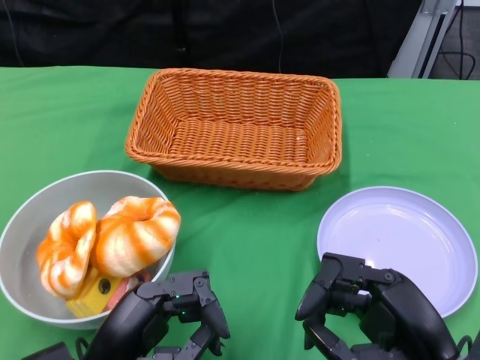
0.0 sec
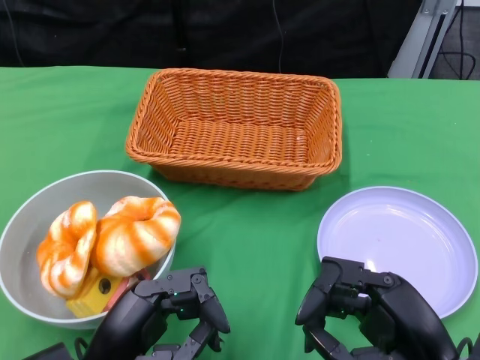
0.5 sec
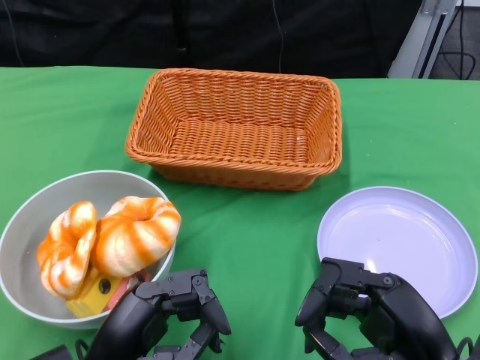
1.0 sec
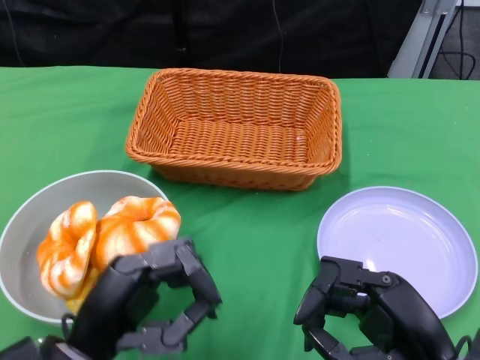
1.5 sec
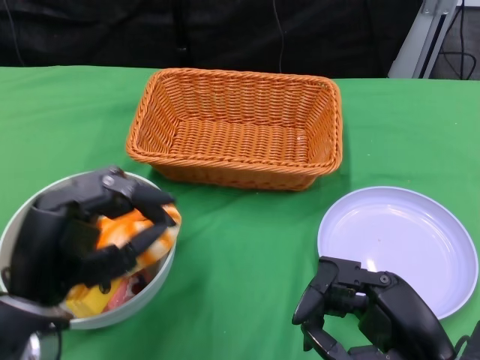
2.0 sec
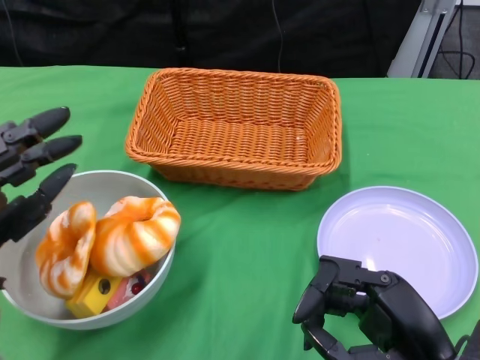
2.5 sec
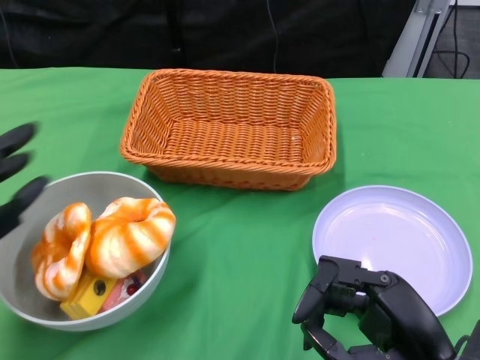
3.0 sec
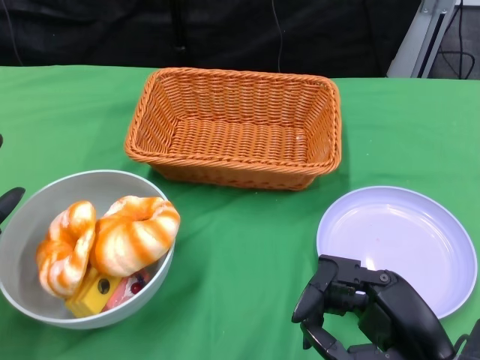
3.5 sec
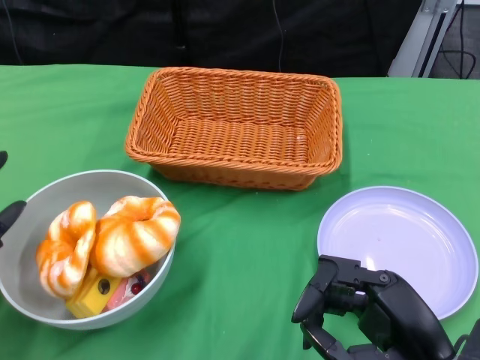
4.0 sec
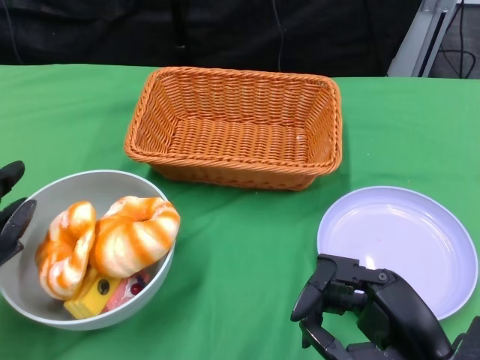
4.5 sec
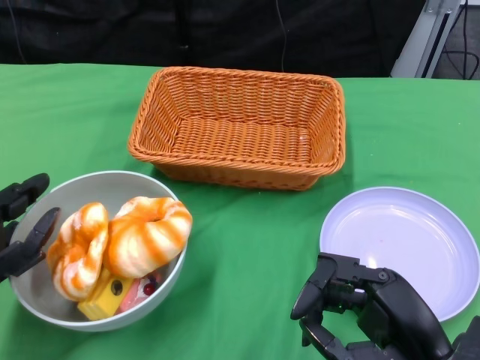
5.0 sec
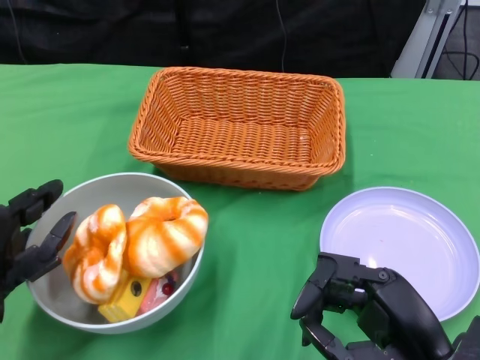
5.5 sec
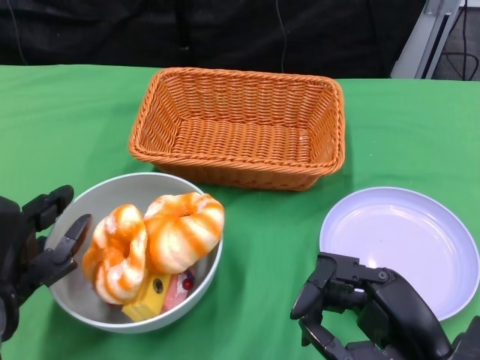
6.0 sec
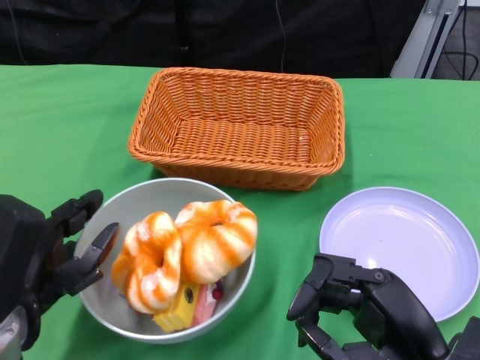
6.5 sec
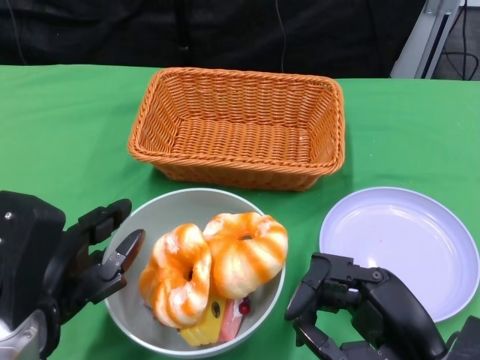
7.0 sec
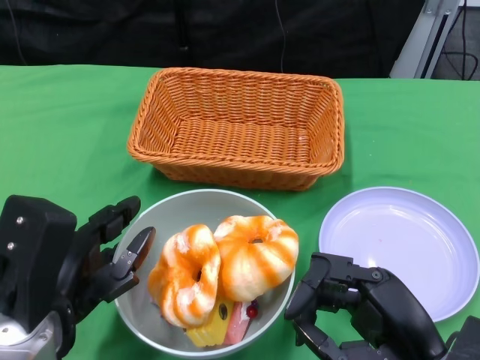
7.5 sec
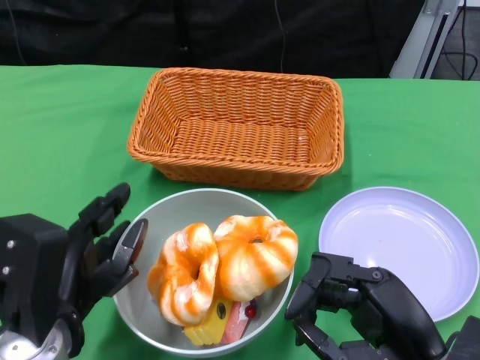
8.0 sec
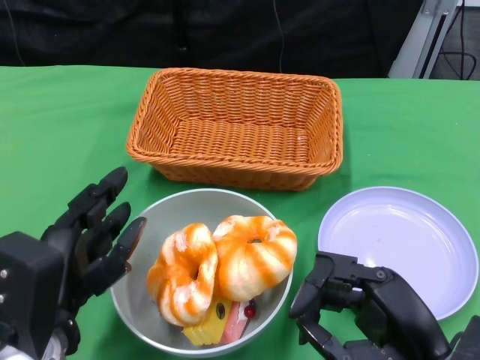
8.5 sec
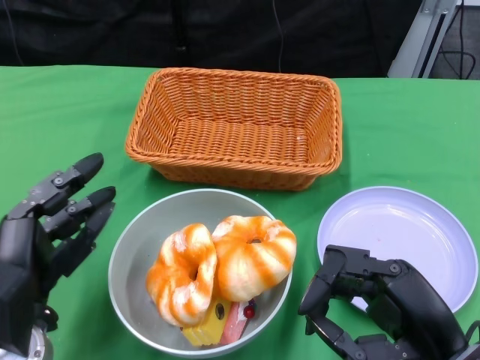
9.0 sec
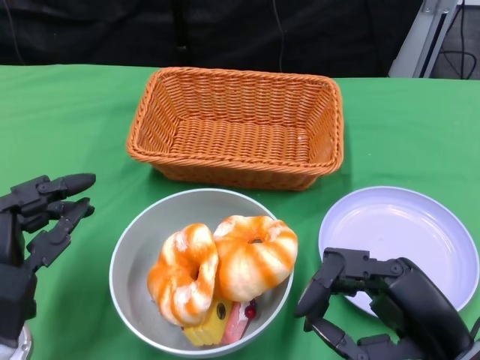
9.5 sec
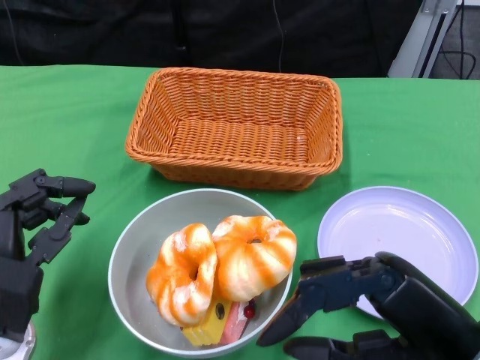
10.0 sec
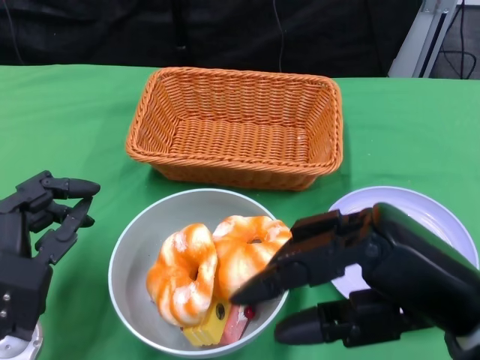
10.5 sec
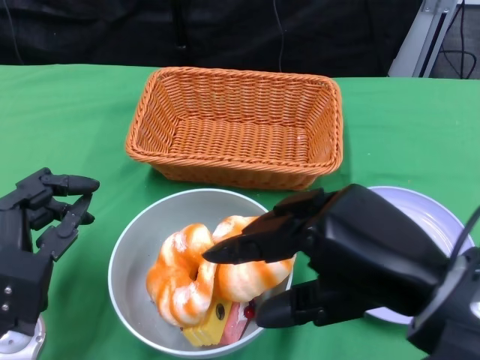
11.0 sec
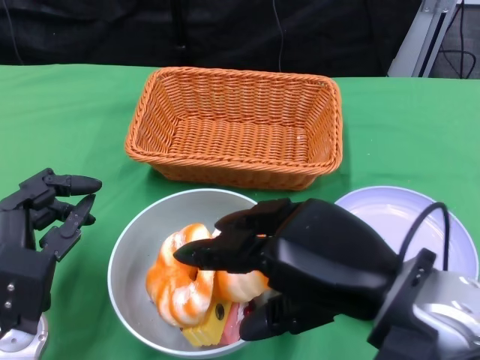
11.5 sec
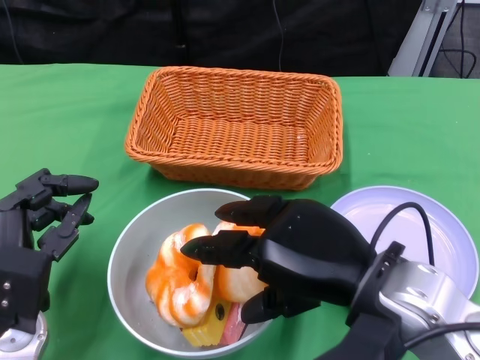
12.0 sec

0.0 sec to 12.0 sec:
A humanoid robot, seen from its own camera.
Step, 0.0 sec to 8.0 sec: Push the bowl to the center of the table using the left gripper.
2.0 sec to 4.0 sec: The left hand heads to the left, covering approximately 10 cm.
4.0 sec to 6.0 sec: The left hand goes some 5 cm to the right.
6.0 sec to 8.0 sec: The left hand goes about 5 cm to the right.
8.0 sec to 10.0 sec: The right hand goes some 5 cm upward. The left hand moves about 5 cm.
10.0 sec to 12.0 sec: The right hand is displaced to the left and forward by approximately 10 cm.

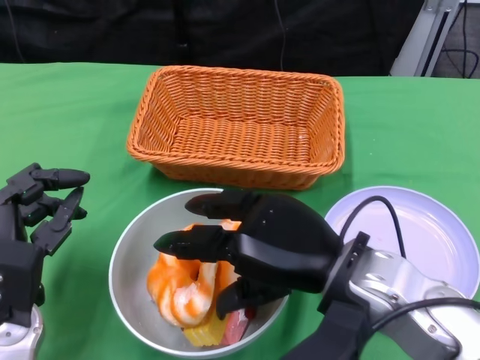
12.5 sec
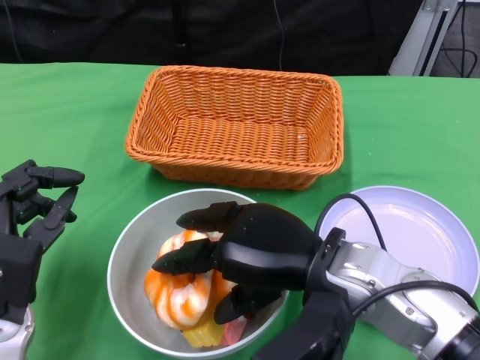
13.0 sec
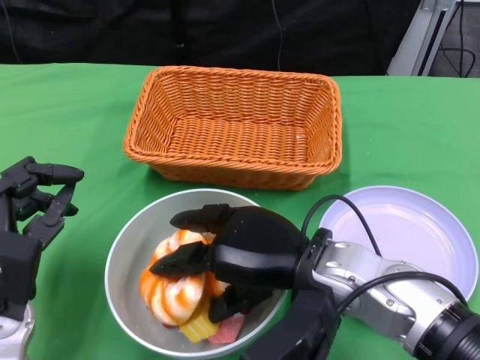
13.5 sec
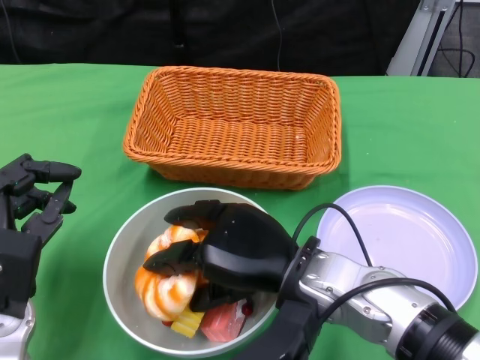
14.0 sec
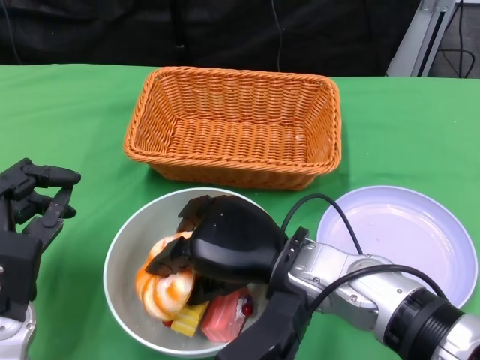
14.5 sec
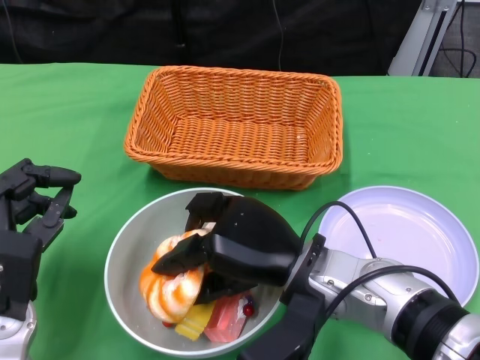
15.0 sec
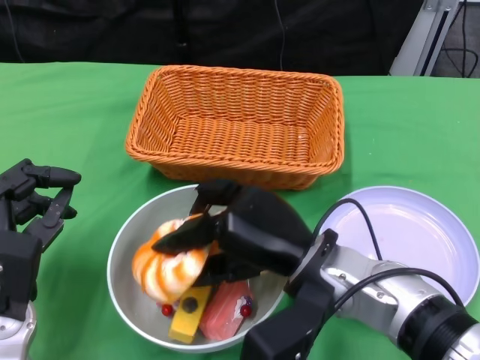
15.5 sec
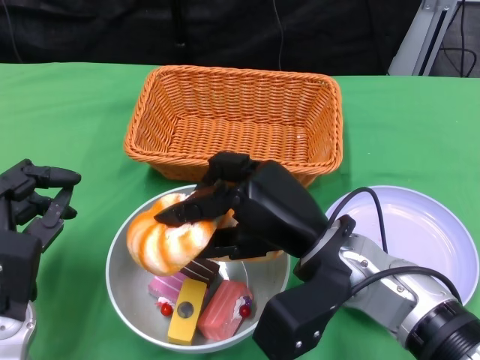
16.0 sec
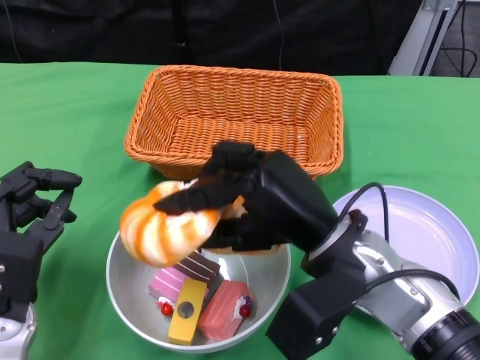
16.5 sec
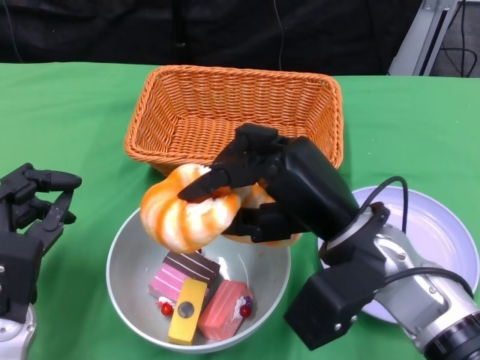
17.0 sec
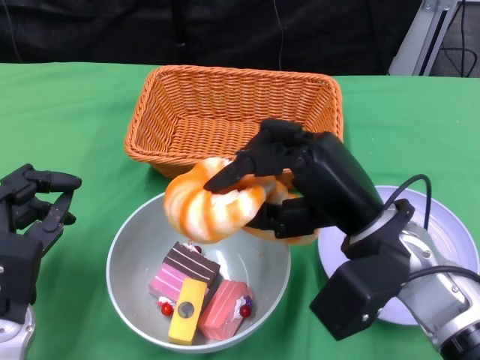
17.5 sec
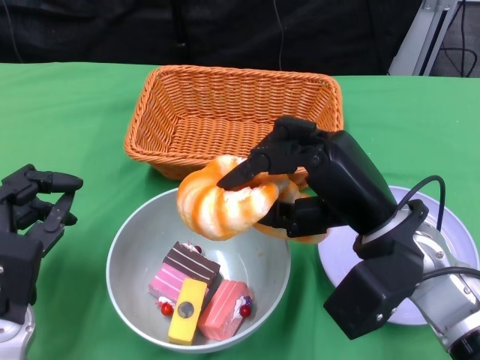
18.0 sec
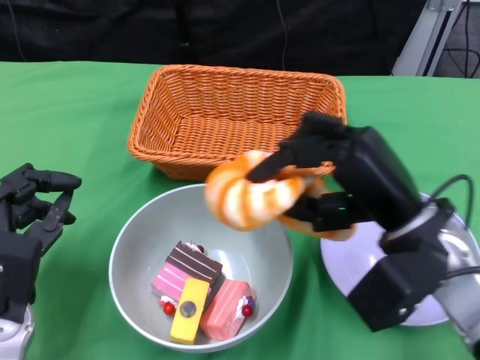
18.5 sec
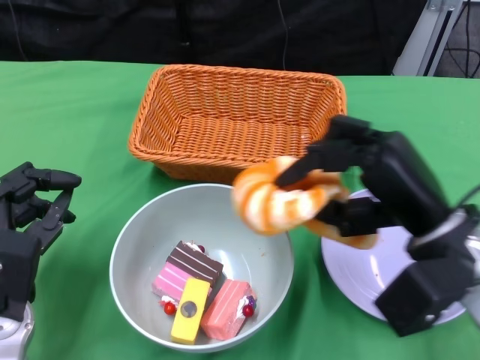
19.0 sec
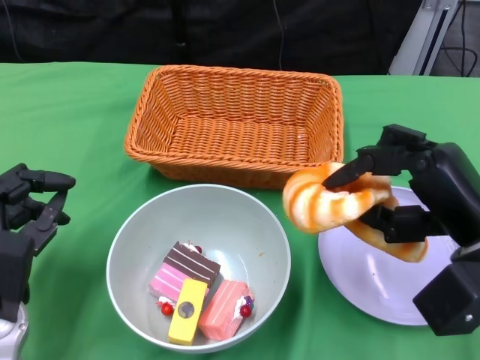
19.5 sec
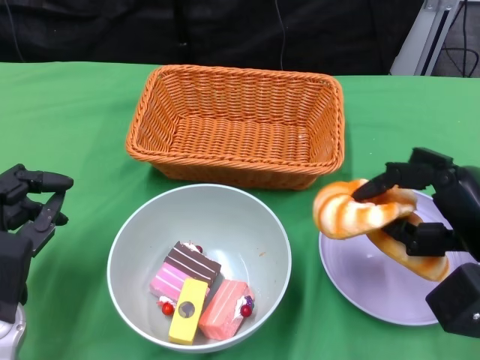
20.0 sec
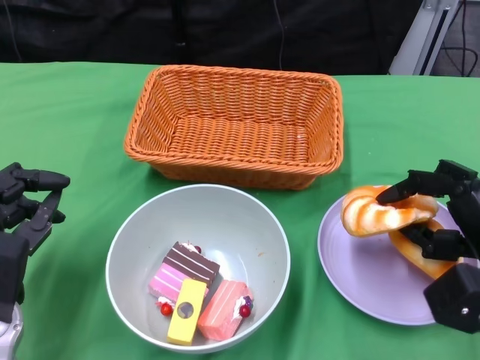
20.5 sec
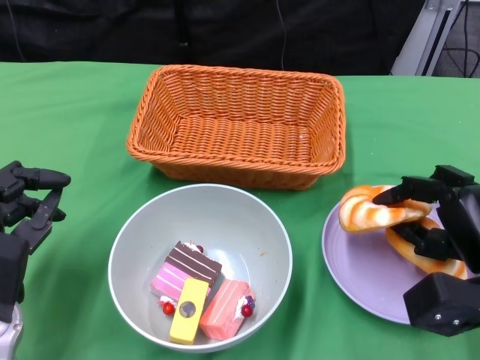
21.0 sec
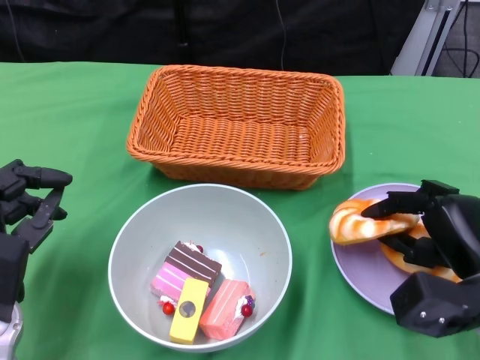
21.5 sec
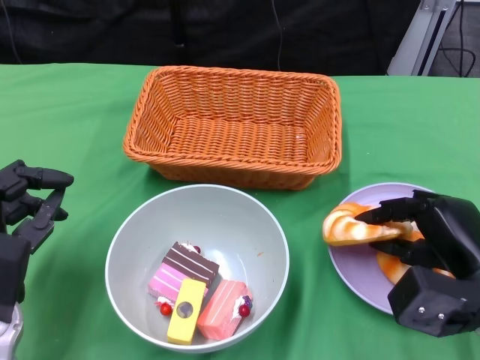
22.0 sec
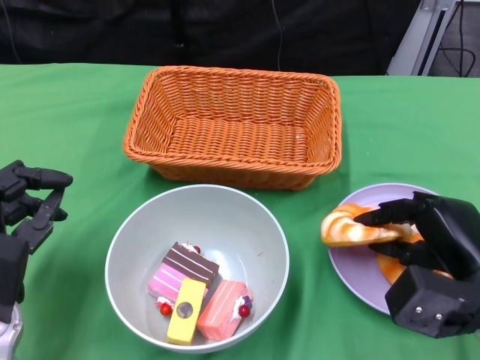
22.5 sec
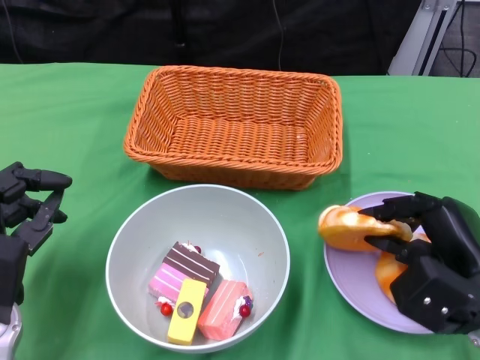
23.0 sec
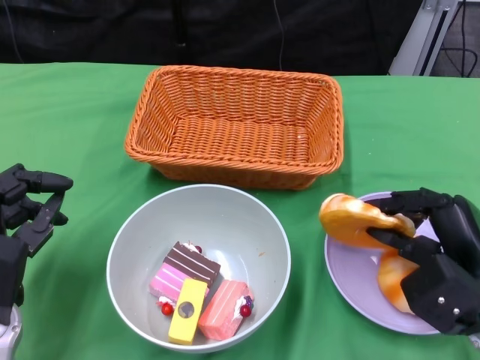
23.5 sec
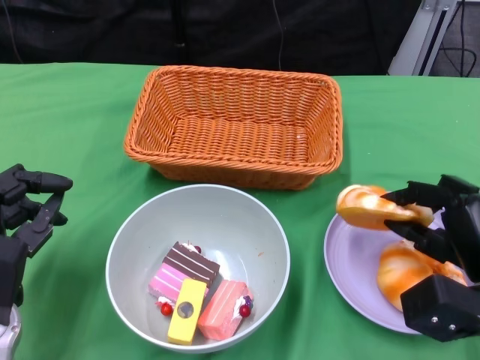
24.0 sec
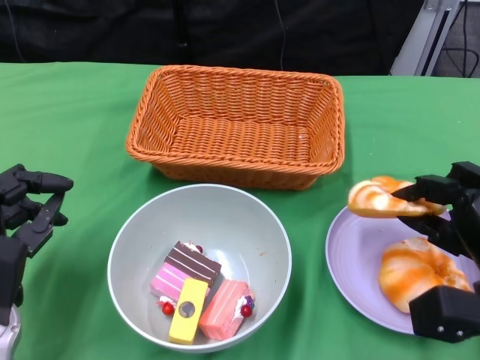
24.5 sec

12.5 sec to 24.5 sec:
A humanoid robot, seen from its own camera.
12.5 sec to 14.5 sec: The right hand moves about 5 cm.
16.5 sec to 18.5 sec: The right hand moves to the right, about 5 cm.
18.5 sec to 20.5 sec: The right hand shifts approximately 10 cm to the right and downward.
20.5 sec to 22.5 sec: There are only small adjustments of the hands.

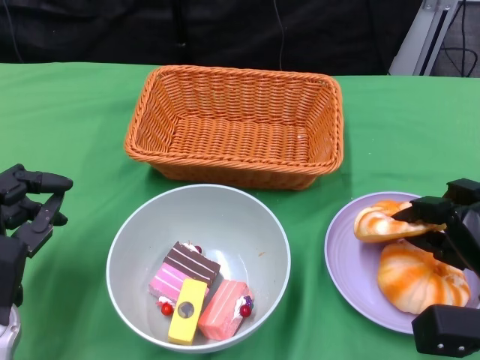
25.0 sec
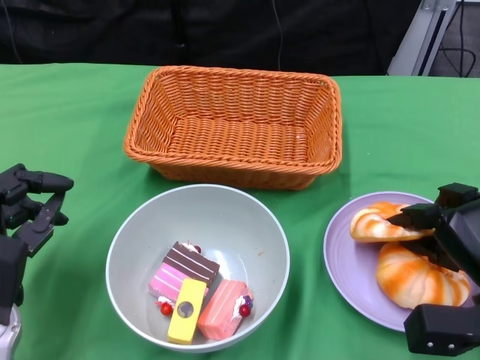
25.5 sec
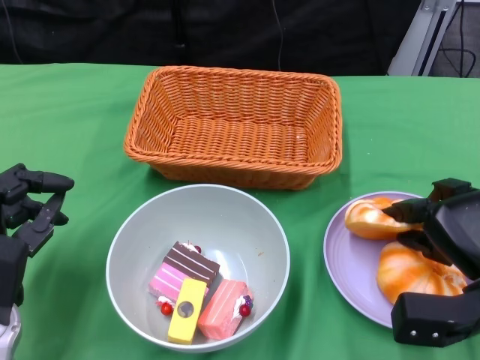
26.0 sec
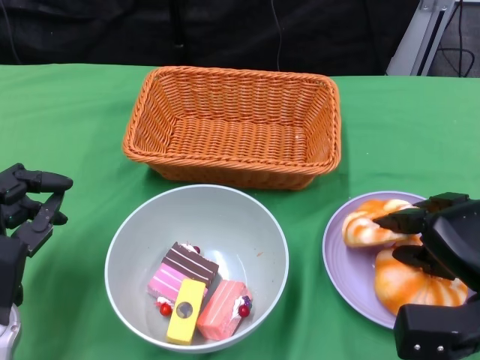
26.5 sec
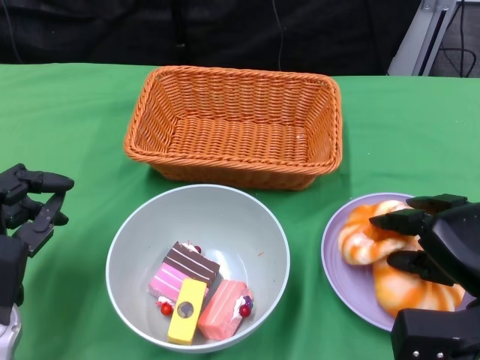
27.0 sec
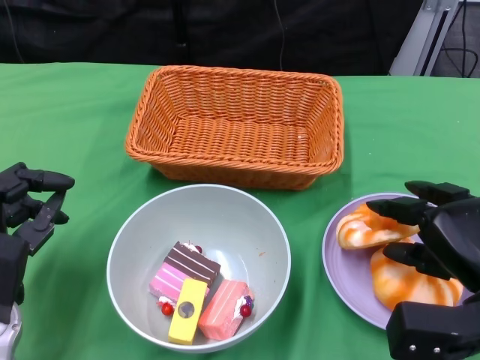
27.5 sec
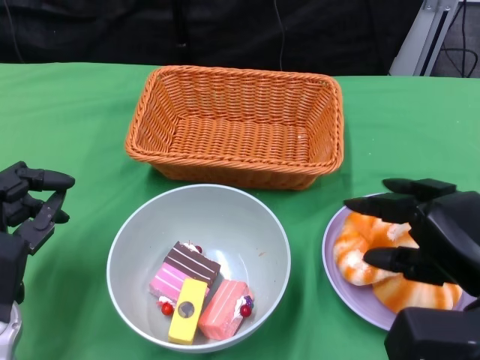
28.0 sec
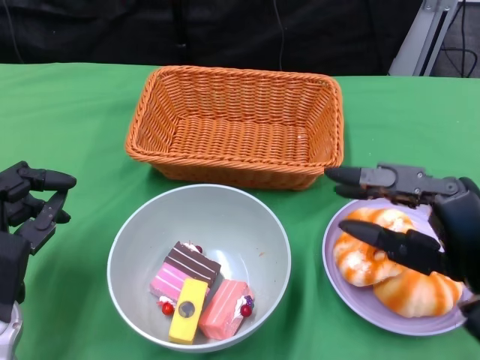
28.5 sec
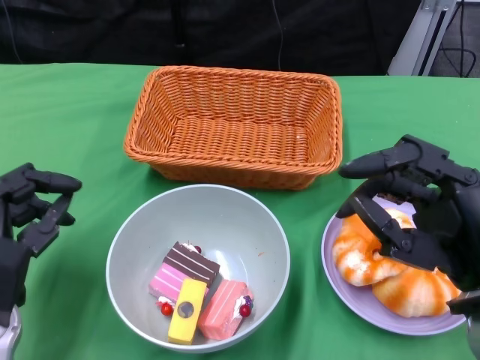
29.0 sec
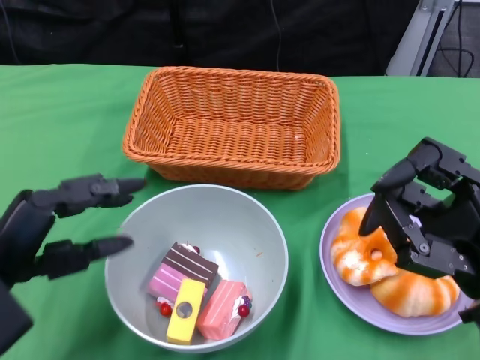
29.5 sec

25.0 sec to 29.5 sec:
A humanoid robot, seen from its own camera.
Step, 25.0 sec to 28.0 sec: Pick up the bread with the right gripper and place it on the plate.
25.0 sec to 27.0 sec: There are only small adjustments of the hands.
27.0 sec to 29.5 sec: The two hands go some 5 cm upward.
